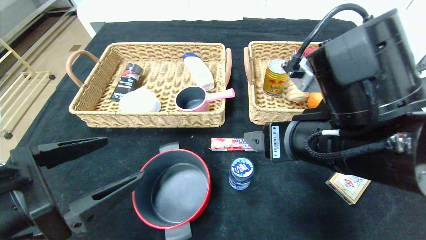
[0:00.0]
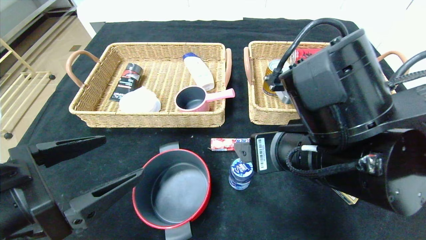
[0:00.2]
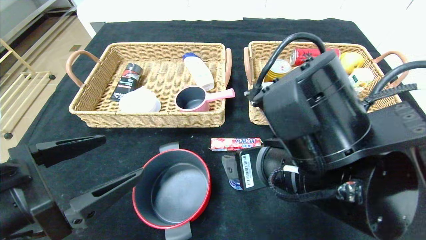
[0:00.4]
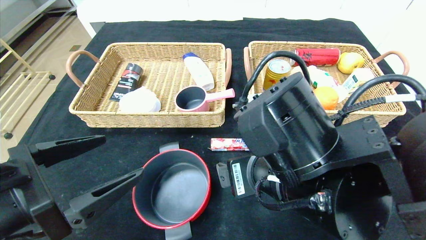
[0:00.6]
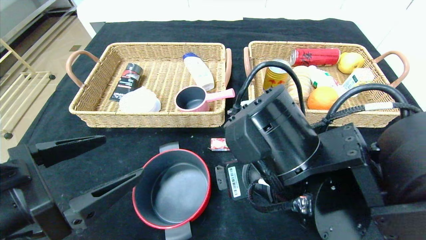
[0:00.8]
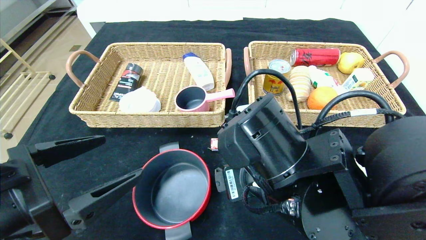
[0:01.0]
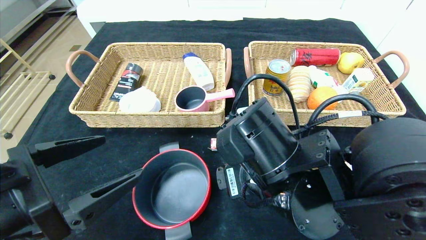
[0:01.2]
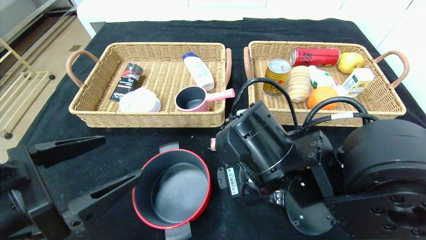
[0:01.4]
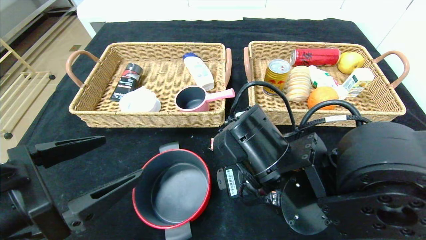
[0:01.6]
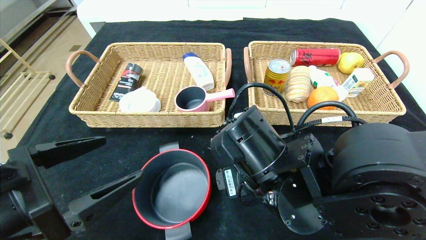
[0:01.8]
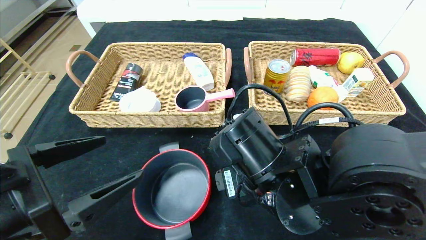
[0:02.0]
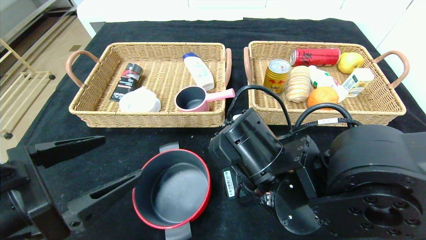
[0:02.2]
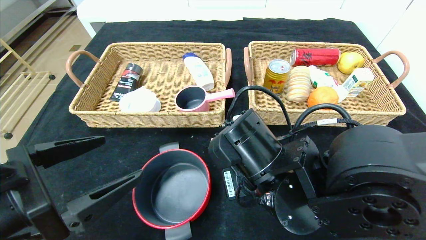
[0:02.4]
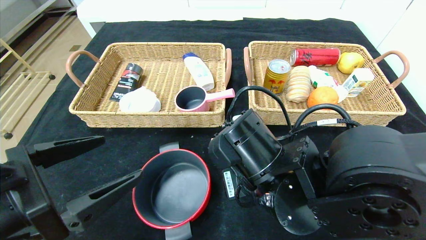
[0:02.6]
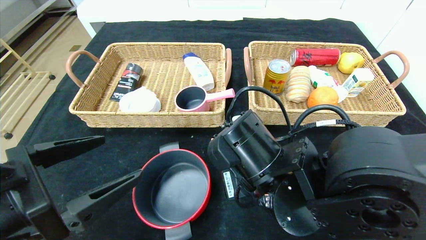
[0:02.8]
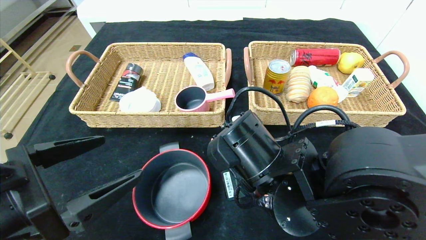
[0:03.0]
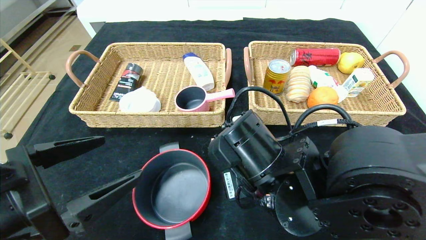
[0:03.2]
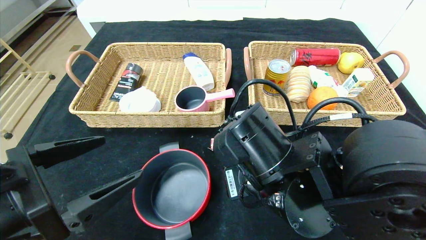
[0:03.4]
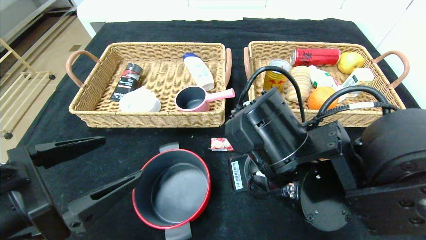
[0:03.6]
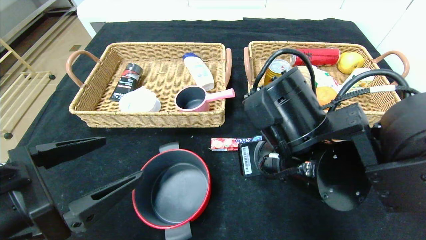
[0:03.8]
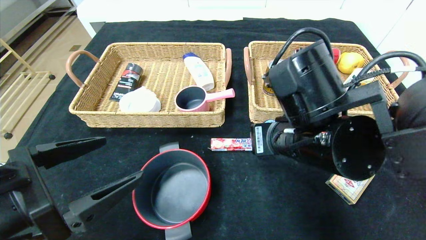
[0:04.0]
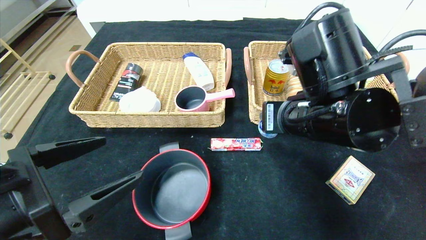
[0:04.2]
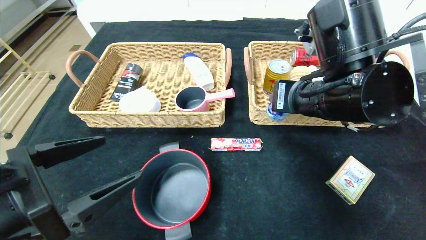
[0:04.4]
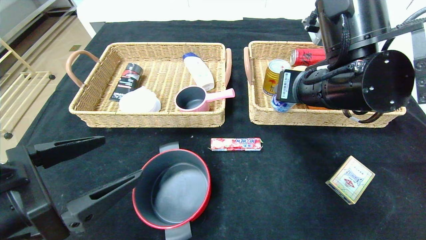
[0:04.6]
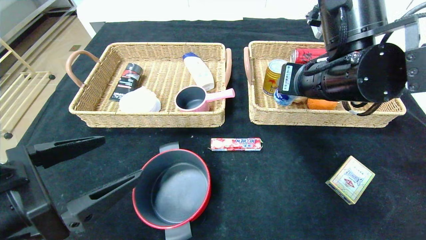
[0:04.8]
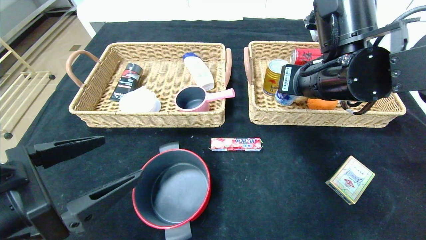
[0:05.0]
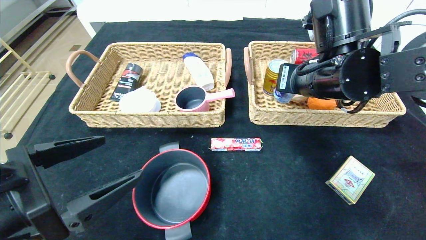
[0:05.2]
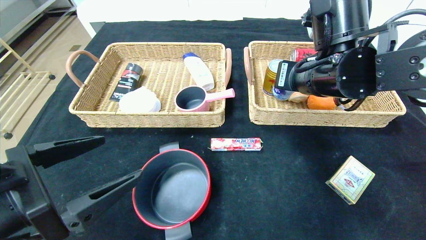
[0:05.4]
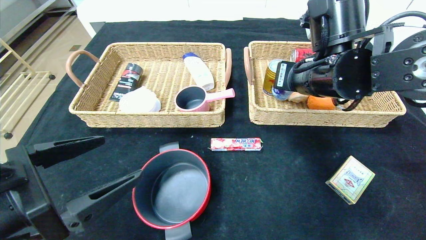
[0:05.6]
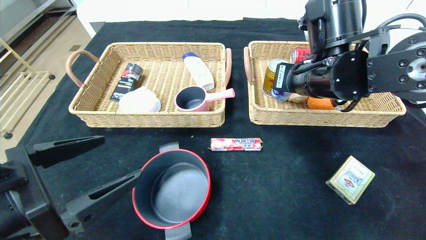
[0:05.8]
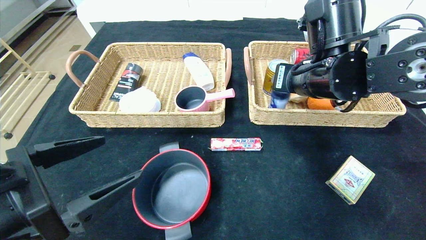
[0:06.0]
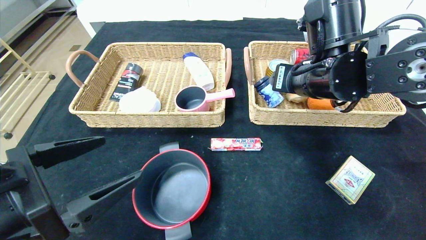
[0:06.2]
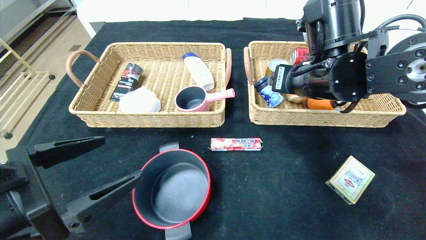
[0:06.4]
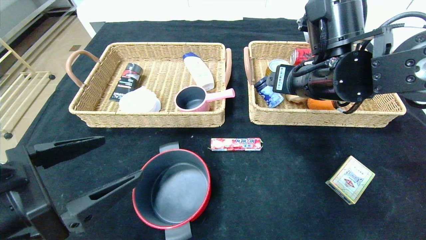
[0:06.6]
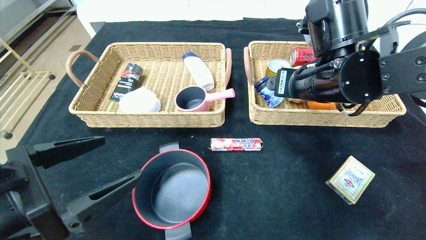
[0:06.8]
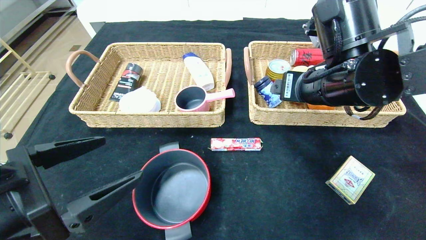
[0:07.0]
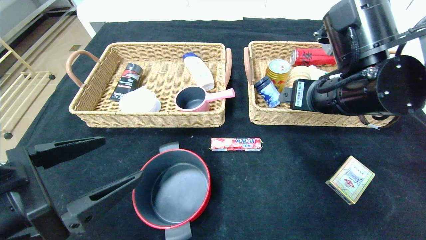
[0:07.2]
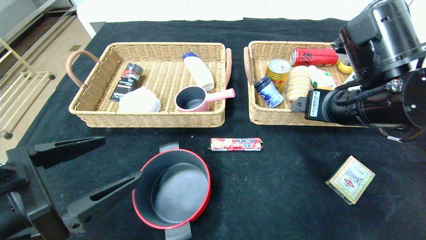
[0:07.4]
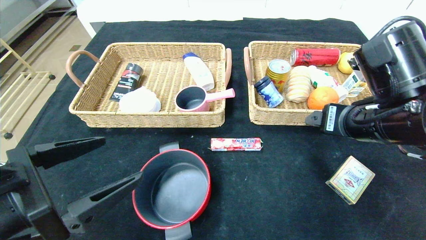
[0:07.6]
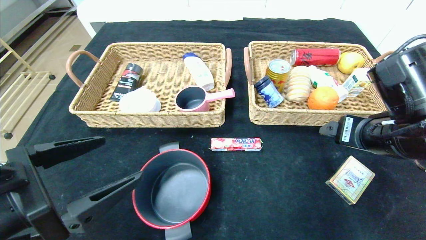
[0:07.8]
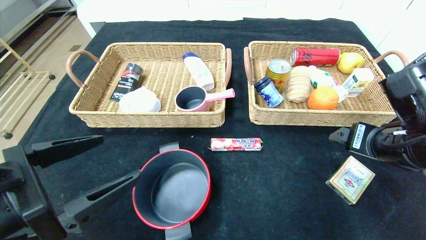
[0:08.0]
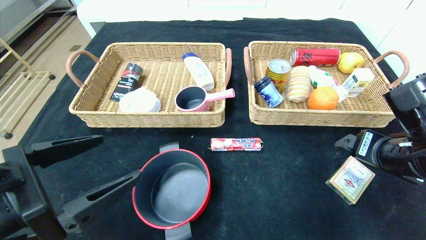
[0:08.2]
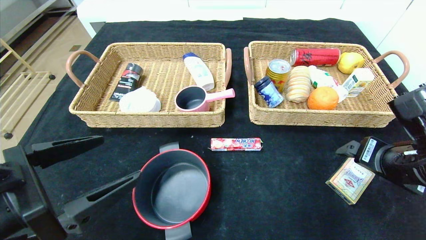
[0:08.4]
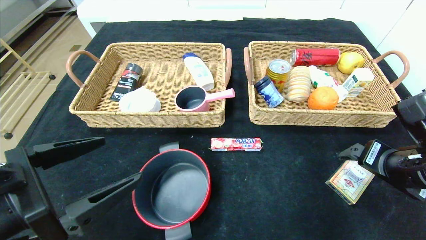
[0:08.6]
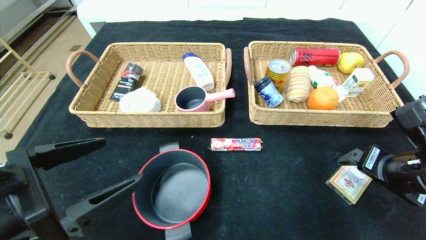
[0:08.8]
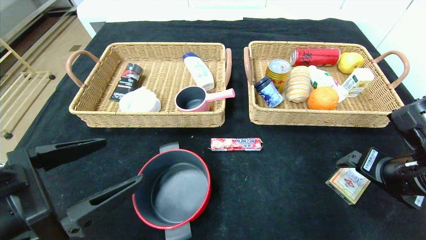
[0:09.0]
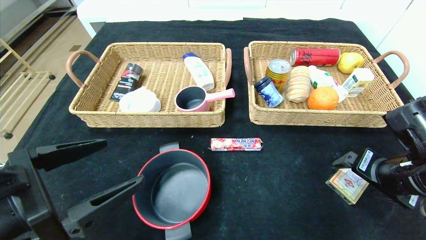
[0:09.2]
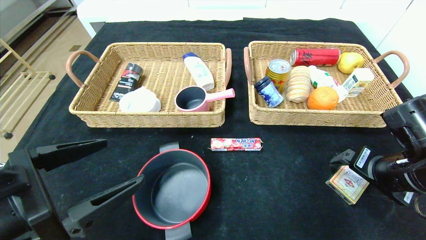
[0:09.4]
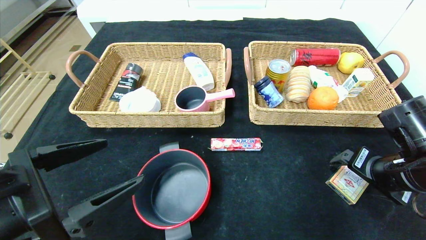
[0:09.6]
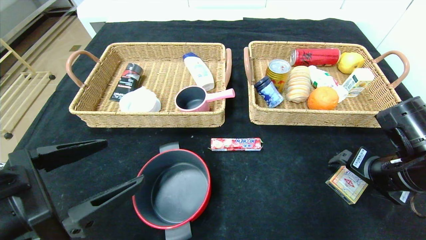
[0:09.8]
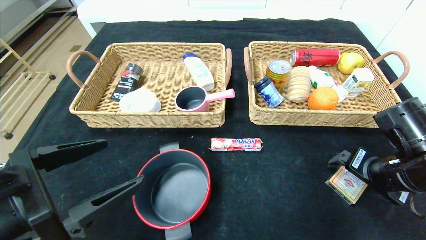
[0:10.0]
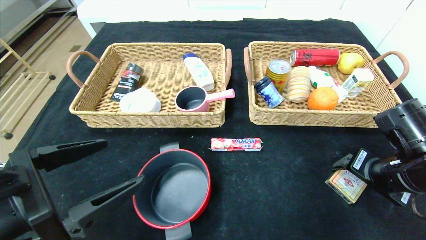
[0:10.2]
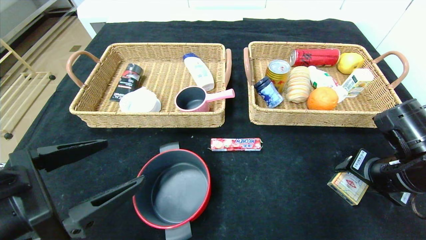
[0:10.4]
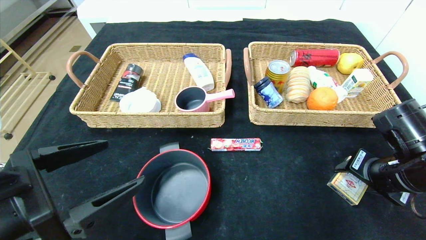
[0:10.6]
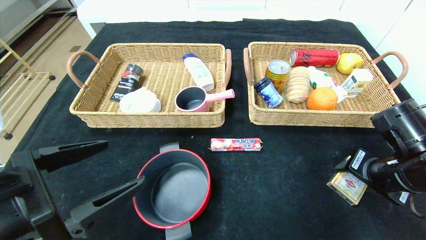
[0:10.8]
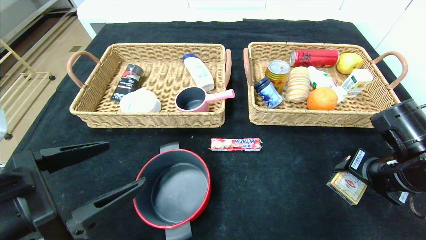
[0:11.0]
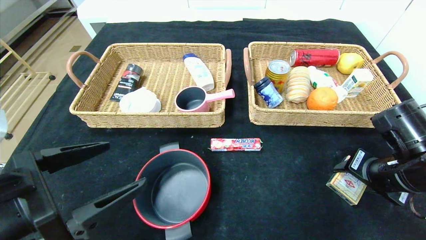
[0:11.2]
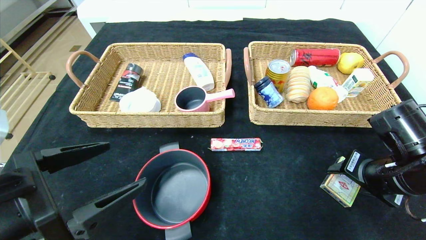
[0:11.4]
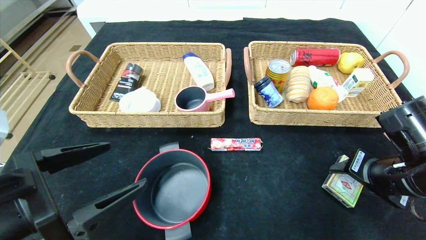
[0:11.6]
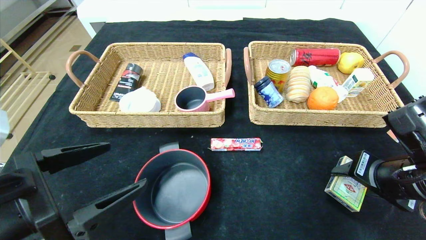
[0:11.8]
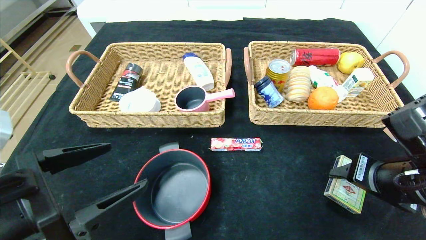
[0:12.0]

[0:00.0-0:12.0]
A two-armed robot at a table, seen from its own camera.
Step, 0:00.0 to 0:06.0: Grasp the round chewing gum and put it in the right basket.
0:00.0 to 0:01.6: The right gripper is displaced downward and to the left by some 10 cm.
0:01.6 to 0:03.0: The right gripper closes.
0:03.0 to 0:04.4: The right gripper shifts roughly 15 cm upward and to the right.
0:04.4 to 0:06.0: The right gripper travels forward by roughly 5 cm.
0:06.0 to 0:07.6: The right gripper moves backward and to the right, roughly 10 cm.
0:07.6 to 0:09.0: The right gripper is displaced to the right and downward by about 10 cm.
0:09.0 to 0:10.4: The right gripper closes up.
0:10.4 to 0:12.0: The right gripper moves some 5 cm.

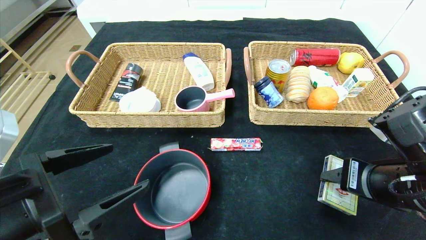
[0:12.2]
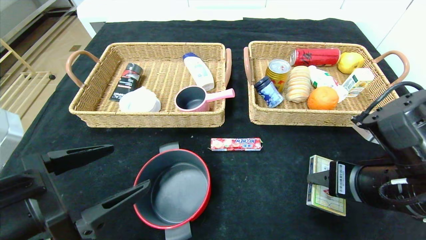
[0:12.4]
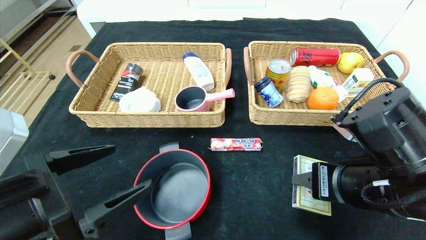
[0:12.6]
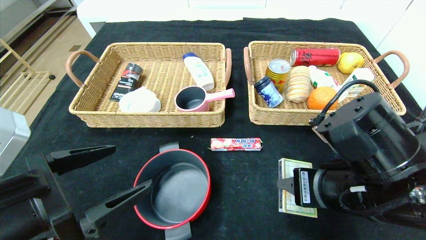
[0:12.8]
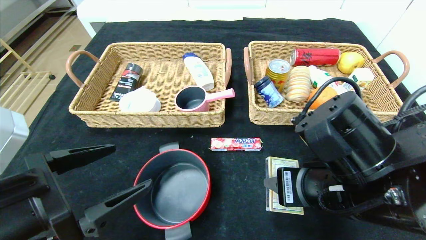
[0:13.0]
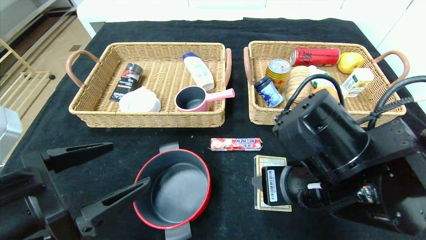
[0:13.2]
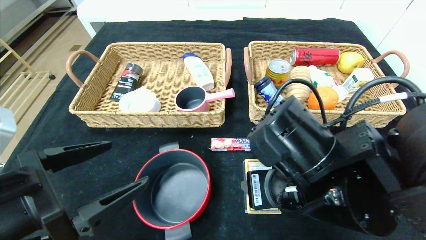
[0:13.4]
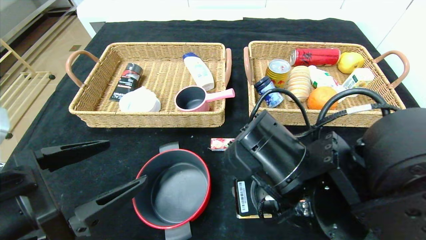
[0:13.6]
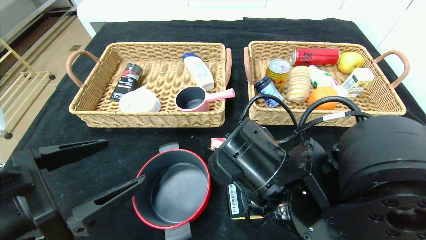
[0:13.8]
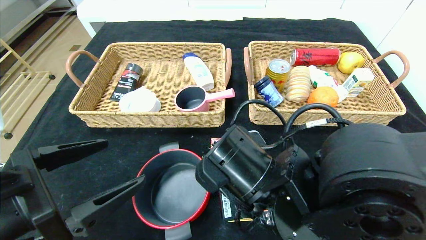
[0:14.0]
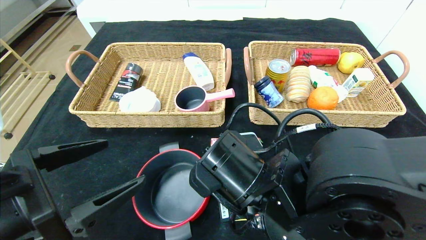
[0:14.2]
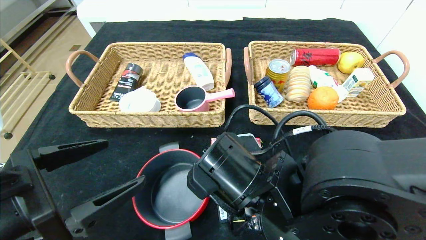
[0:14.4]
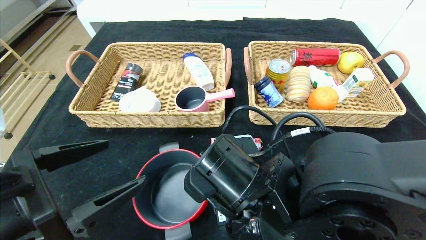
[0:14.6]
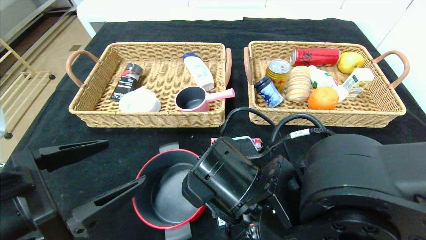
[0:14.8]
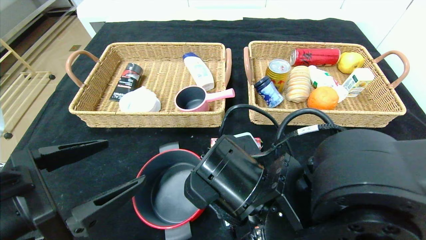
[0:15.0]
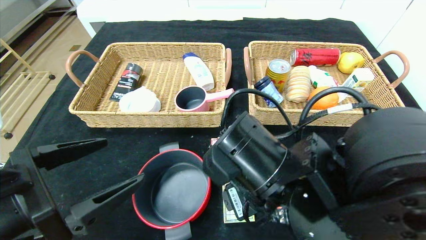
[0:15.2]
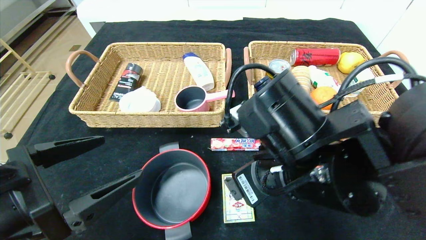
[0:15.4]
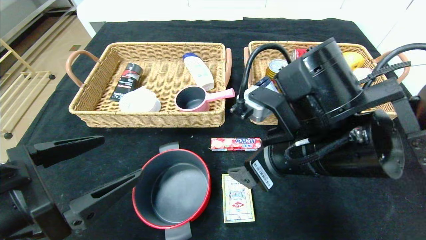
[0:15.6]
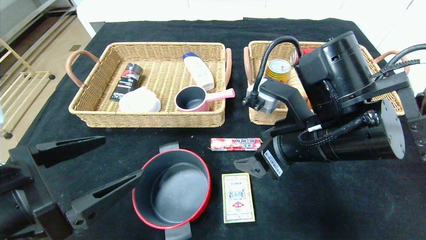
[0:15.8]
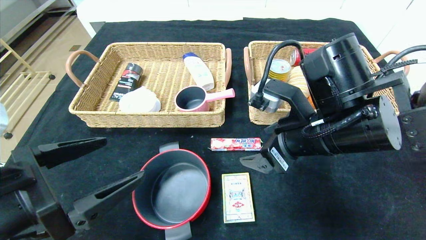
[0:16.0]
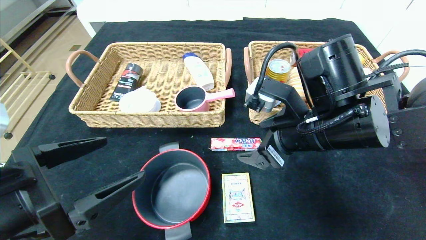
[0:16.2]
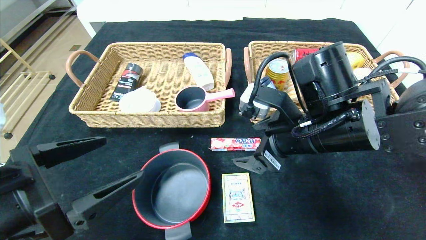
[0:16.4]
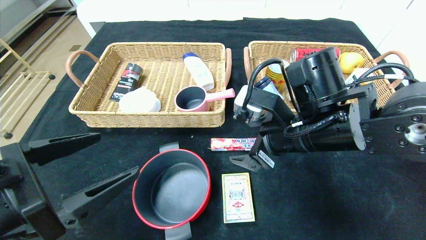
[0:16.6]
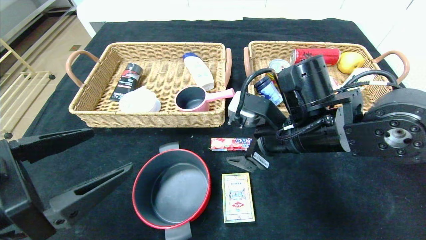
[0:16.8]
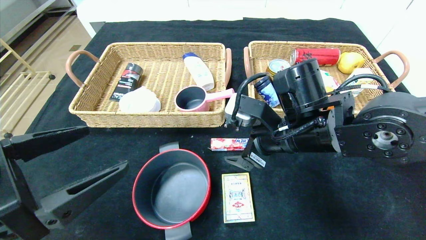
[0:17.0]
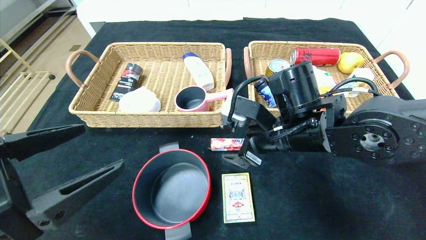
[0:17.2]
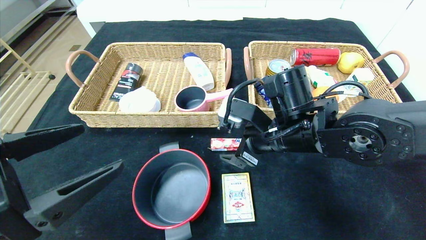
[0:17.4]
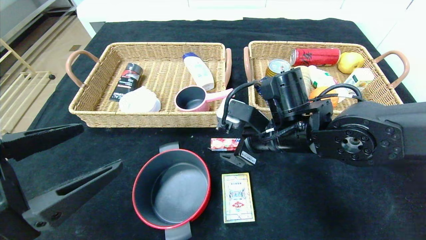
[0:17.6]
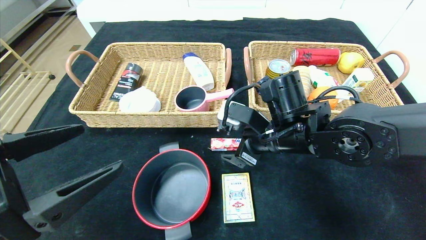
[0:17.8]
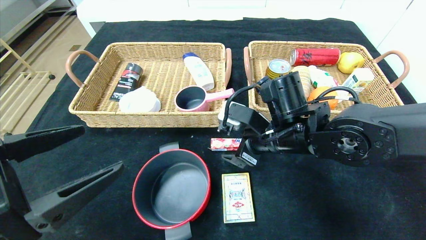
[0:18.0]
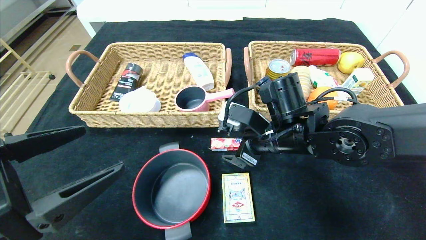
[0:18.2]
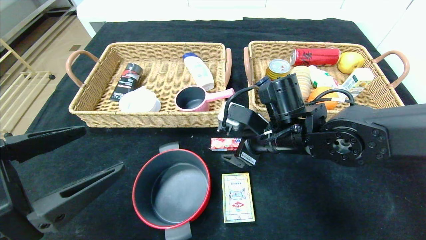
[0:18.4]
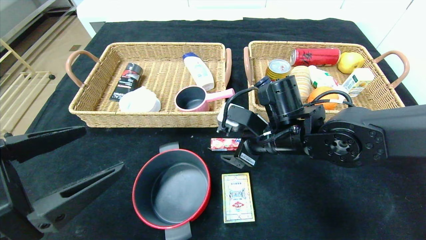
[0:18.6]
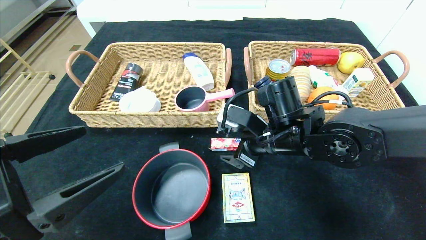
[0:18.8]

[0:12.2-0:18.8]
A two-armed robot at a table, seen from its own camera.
Step, 0:12.2 to 0:15.0: Place the playing cards in the center of the table.
0:12.2 to 0:13.8: The right gripper travels to the left by approximately 15 cm.
0:13.8 to 0:15.4: The right gripper moves some 5 cm, and opens its fingers.
0:15.4 to 0:17.2: The right gripper moves forward, about 10 cm.
0:17.2 to 0:18.8: There are only small adjustments of the grippers.
